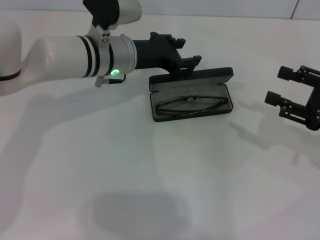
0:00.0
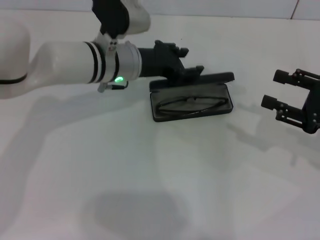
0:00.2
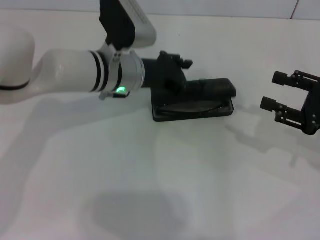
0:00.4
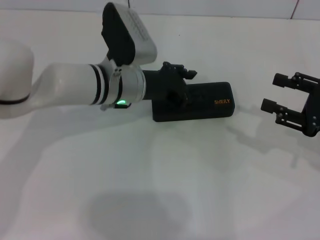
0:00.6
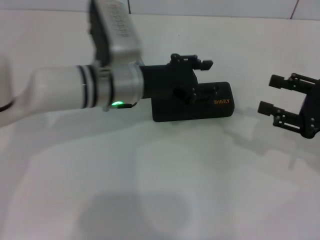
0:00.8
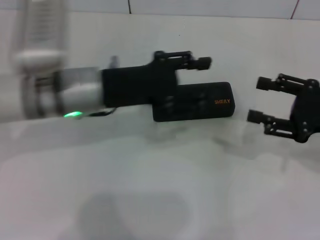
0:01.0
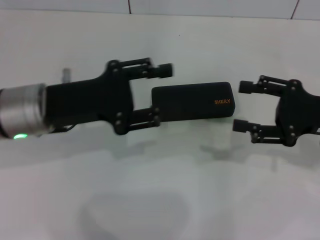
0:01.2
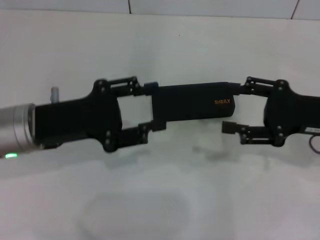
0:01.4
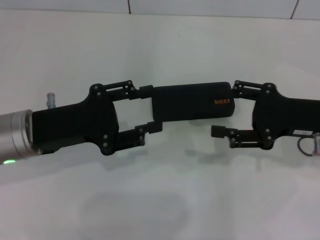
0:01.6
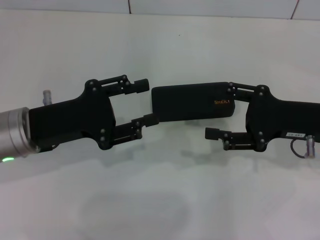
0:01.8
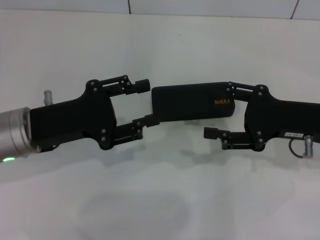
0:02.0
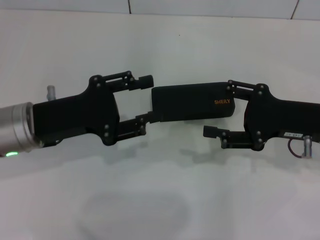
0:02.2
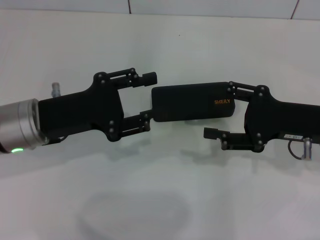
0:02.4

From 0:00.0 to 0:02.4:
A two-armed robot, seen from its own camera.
From 0:00.0 to 0:01.2: The left gripper goes approximately 15 cm backward and to the left.
From 0:01.2 to 0:02.4: The grippers make only small movements.

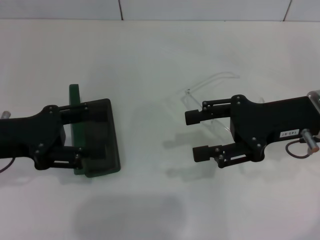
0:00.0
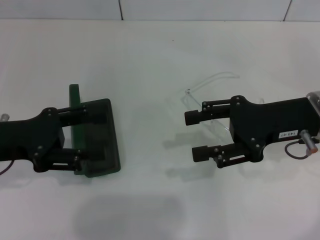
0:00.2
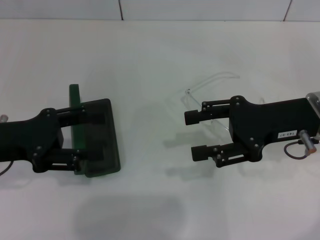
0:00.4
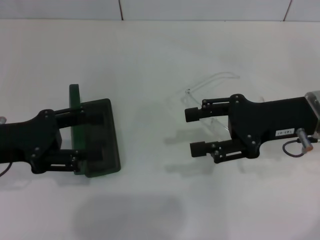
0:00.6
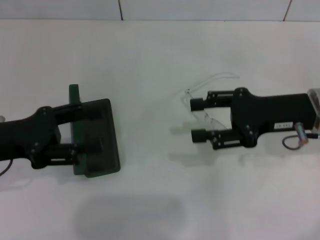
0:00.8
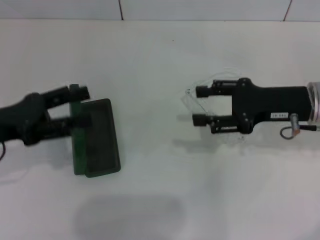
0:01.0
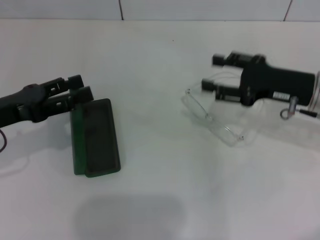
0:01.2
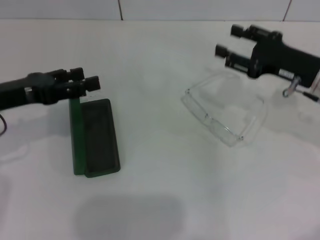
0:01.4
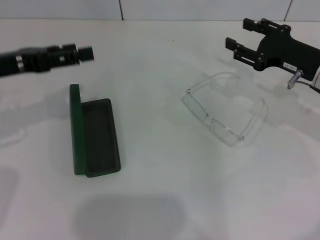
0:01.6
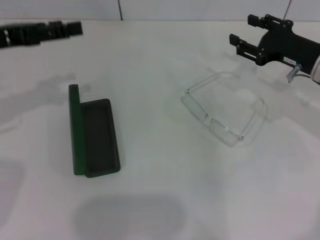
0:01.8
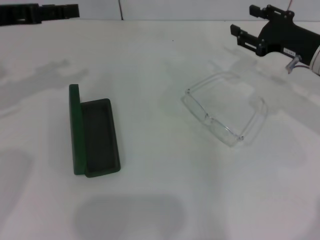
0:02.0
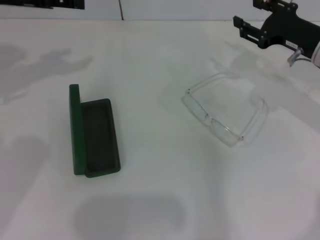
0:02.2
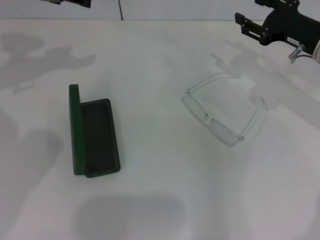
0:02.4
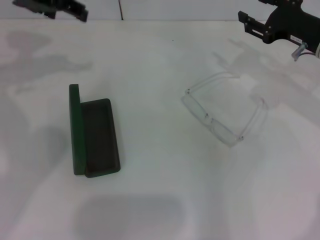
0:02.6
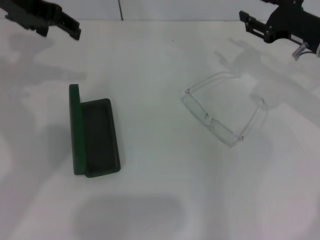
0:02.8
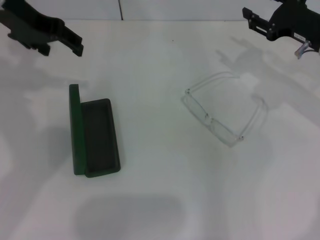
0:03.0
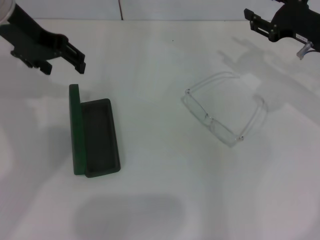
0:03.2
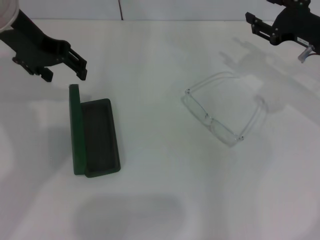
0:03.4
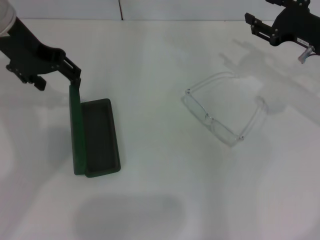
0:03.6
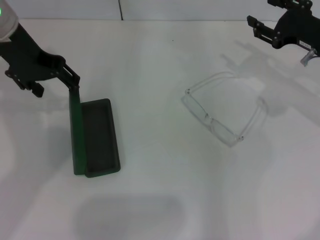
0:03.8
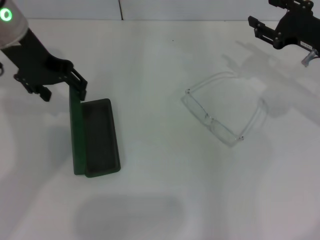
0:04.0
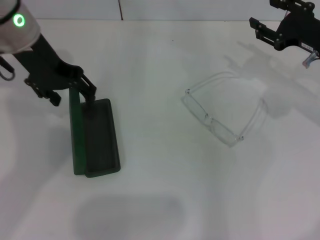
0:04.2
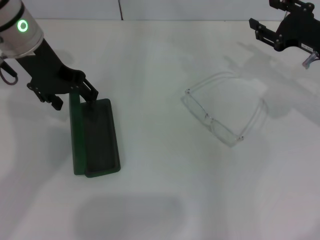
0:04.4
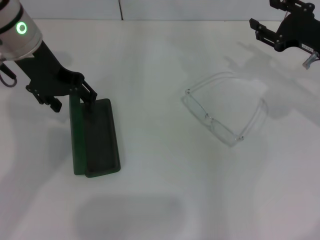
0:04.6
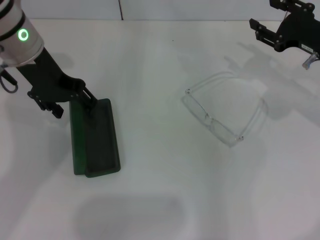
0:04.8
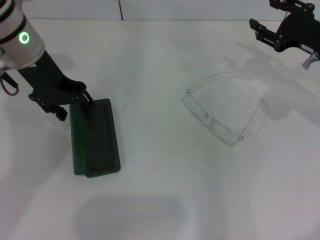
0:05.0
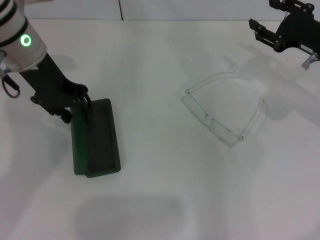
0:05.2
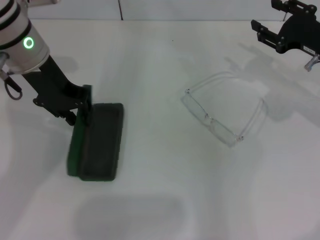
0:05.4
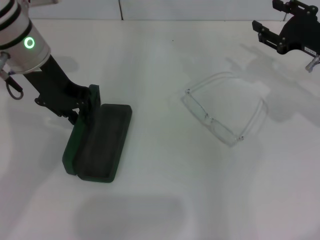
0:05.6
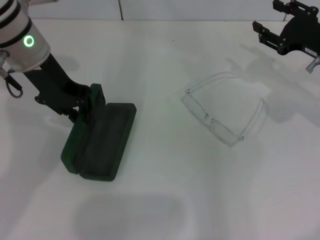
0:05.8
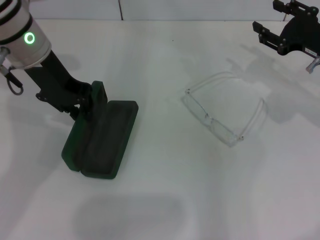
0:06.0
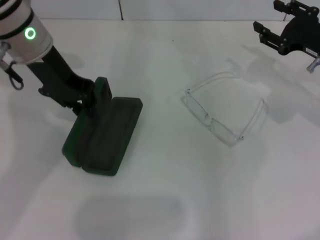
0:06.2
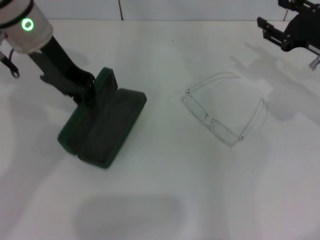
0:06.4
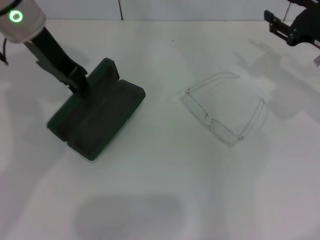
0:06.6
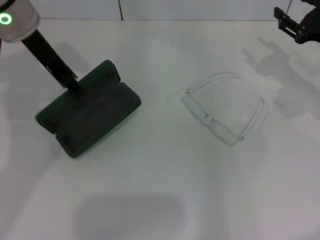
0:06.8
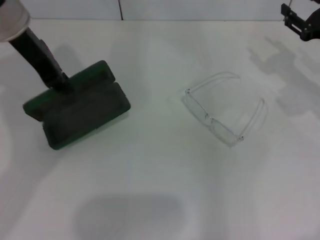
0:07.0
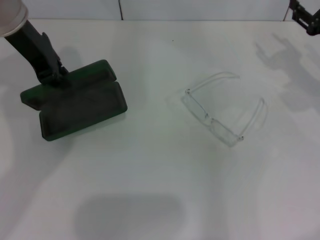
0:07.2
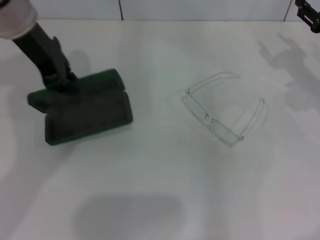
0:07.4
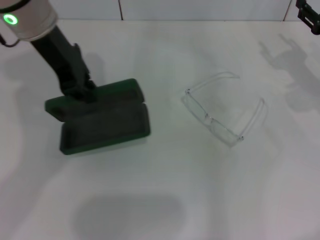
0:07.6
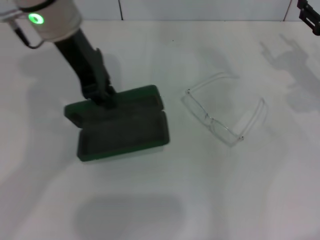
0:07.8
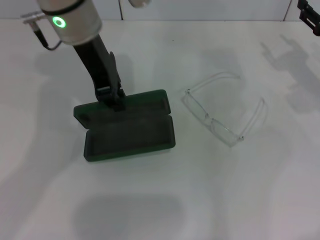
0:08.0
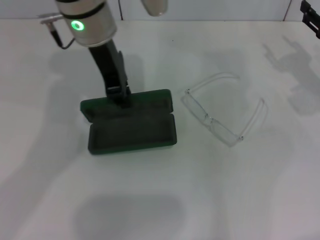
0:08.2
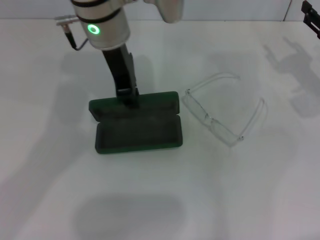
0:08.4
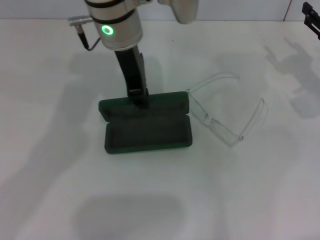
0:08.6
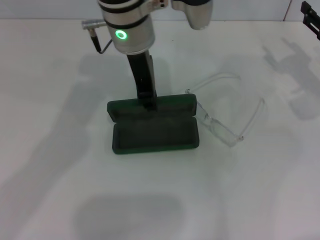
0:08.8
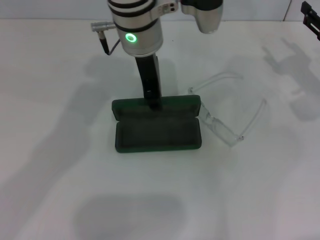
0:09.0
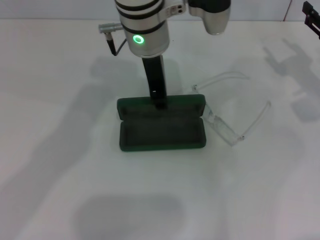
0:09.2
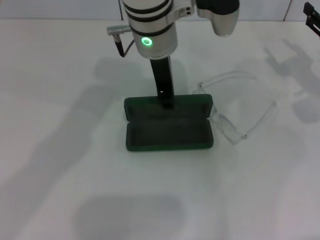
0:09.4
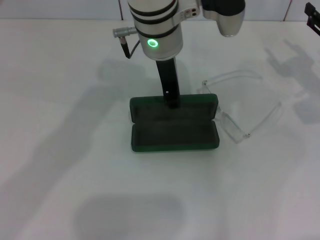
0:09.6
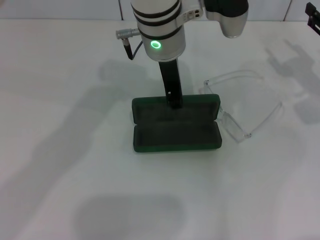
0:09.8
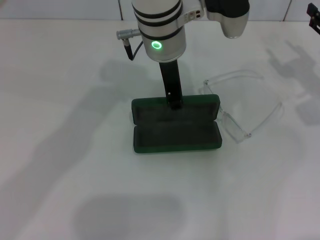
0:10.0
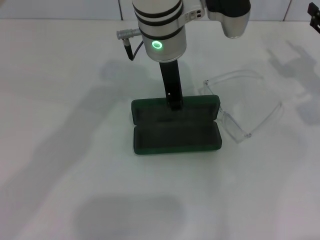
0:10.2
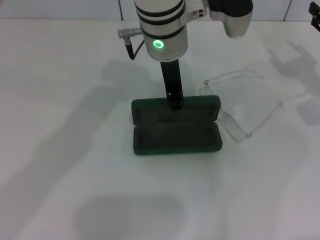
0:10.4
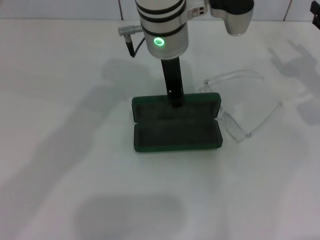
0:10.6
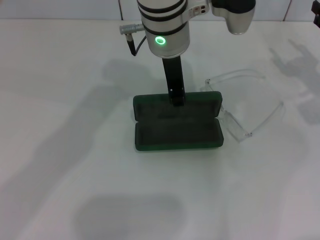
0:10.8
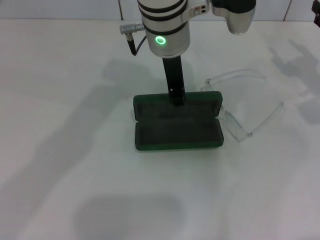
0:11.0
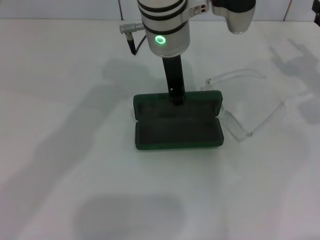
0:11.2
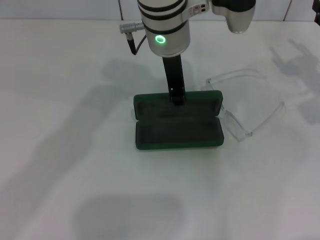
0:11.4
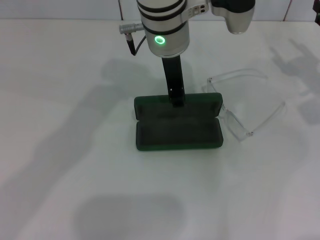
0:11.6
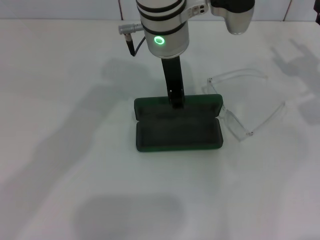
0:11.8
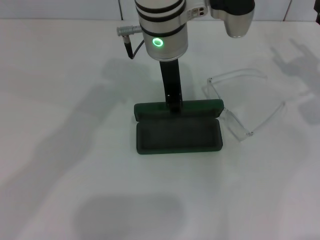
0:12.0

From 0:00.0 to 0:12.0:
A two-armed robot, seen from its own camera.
Step, from 0:00.0 to 0:05.6: Grab the glasses case with your left hand.
From 0:00.0 to 0:01.6: The right gripper heads forward, covering roughly 5 cm; the left gripper ends up approximately 5 cm from where it was.
From 0:01.6 to 0:03.0: The left gripper goes approximately 15 cm upward, forward and to the right.
From 0:03.0 to 0:04.4: The left gripper moves some 5 cm.
From 0:04.4 to 0:06.0: The left gripper closes.
From 0:07.6 to 0:09.0: The left gripper shifts roughly 15 cm to the right.
From 0:09.0 to 0:10.4: The grippers stay close to where they were, moving slightly.
From 0:10.4 to 0:12.0: The two grippers keep their place.

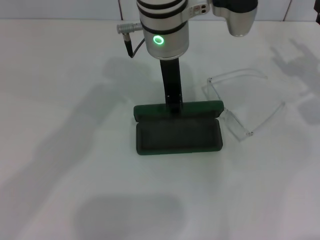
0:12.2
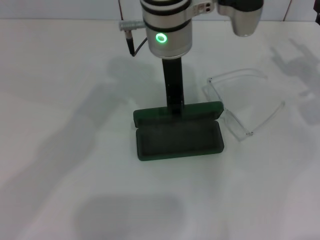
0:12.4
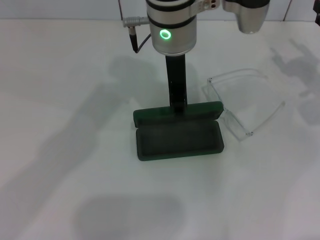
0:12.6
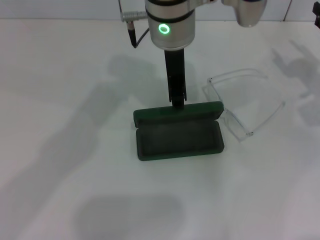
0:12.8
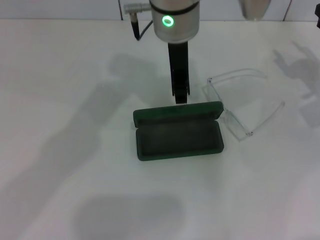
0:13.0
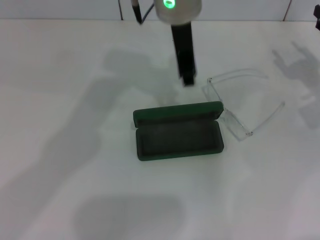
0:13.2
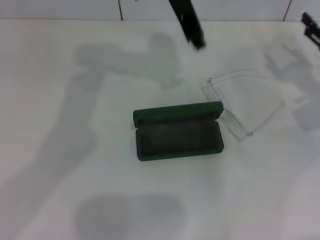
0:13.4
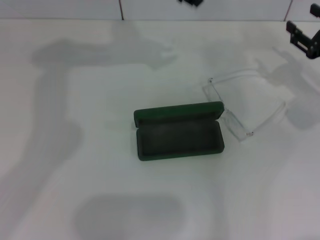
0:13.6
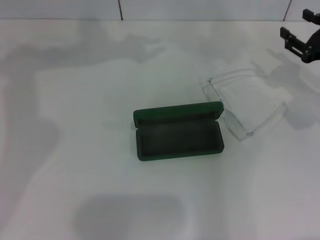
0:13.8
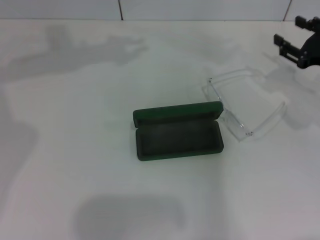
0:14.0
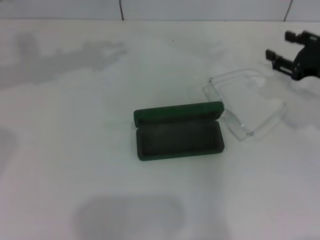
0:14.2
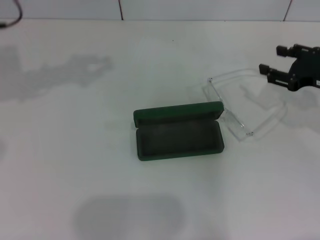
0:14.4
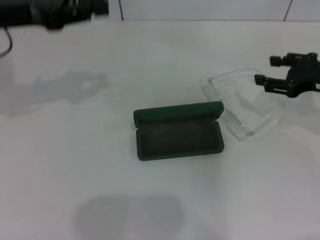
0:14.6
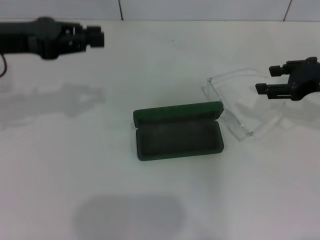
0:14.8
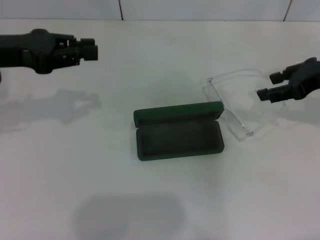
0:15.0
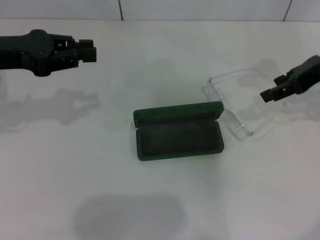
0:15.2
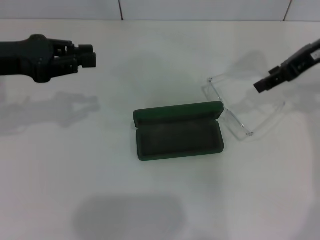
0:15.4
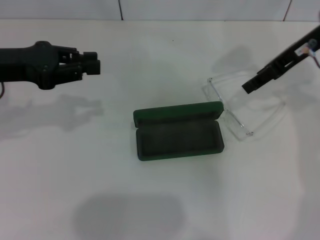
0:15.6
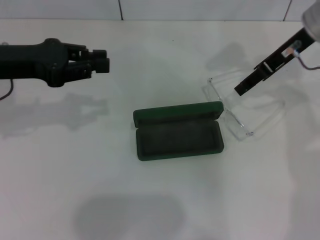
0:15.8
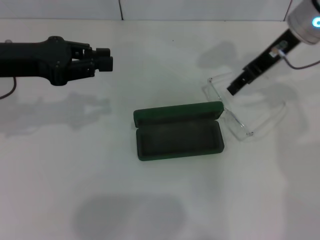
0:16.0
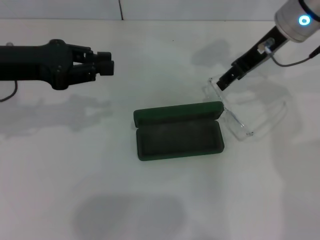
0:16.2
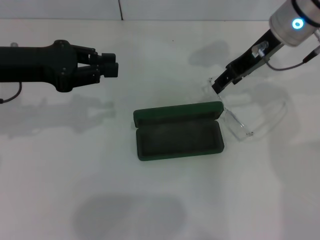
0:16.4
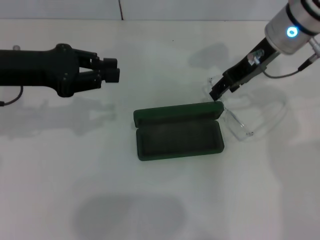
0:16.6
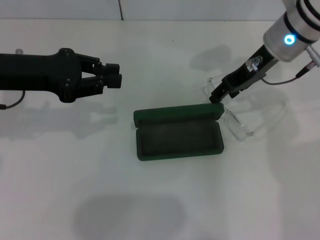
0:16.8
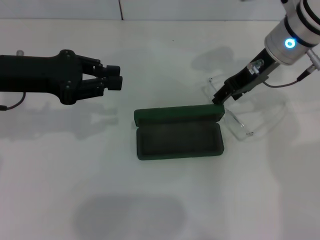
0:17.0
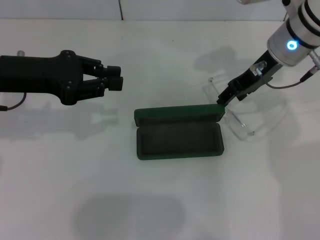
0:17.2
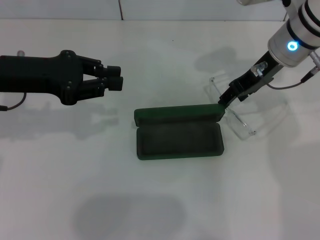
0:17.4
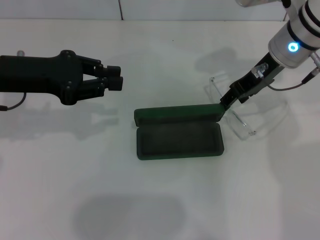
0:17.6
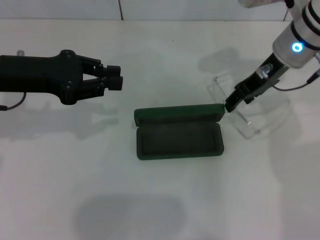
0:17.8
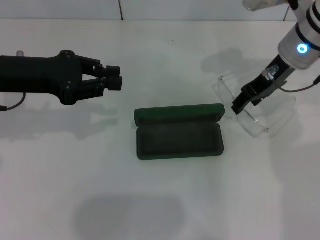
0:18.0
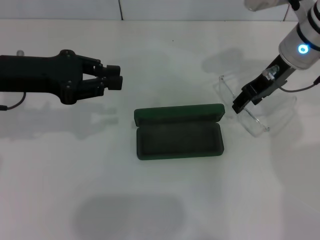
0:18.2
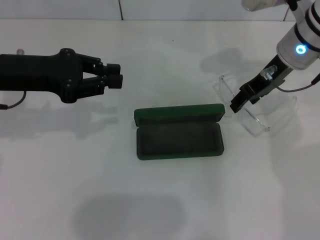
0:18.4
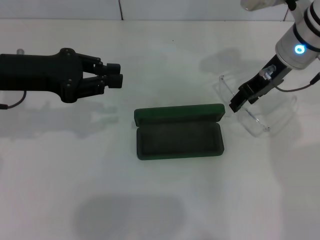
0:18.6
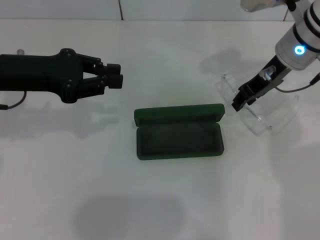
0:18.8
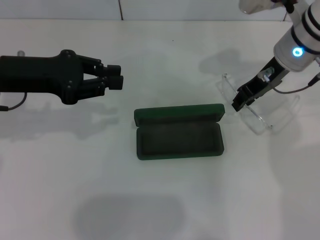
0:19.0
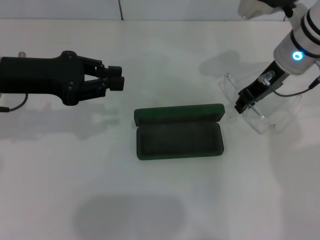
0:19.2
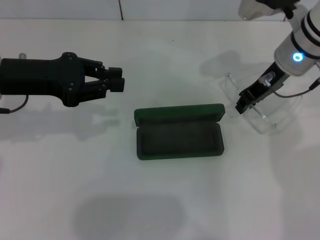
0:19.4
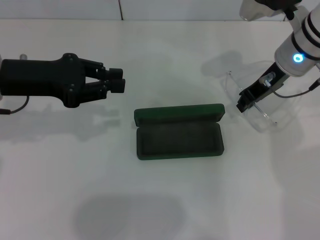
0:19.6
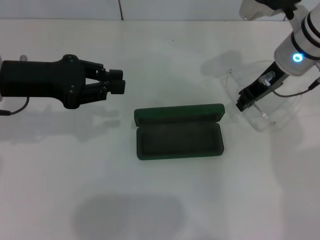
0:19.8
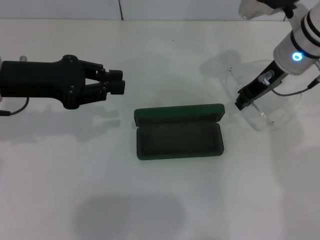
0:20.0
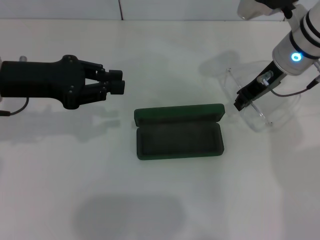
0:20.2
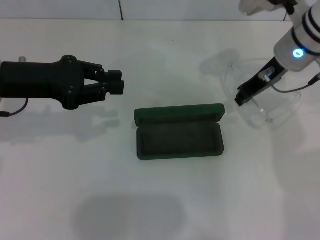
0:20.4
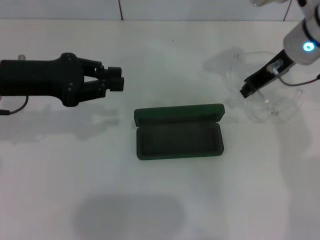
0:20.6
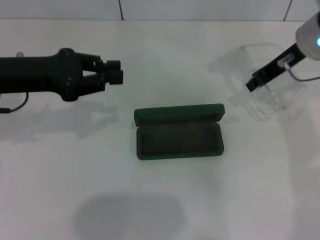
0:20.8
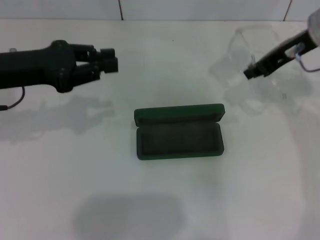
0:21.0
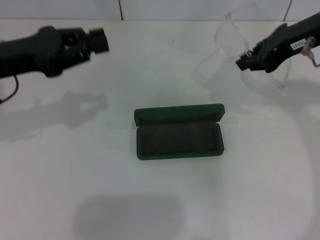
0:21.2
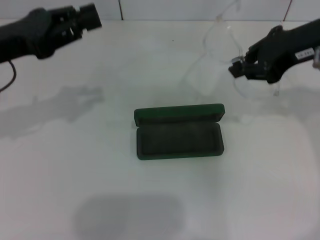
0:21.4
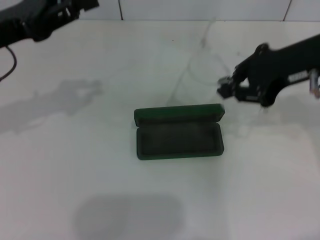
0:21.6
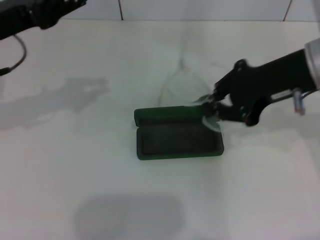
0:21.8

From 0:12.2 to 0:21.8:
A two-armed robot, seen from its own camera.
Step, from 0:12.4 to 0:20.0: Grab the eyeglass frame with your right hand.
From 0:12.2 to 0:13.8: The left gripper is displaced to the left and forward by approximately 15 cm.
From 0:13.8 to 0:15.4: The left gripper goes about 20 cm to the left, backward and downward, while the right gripper moves upward and to the left, some 15 cm.
From 0:15.4 to 0:17.0: The right gripper shifts some 10 cm to the left.
From 0:17.0 to 0:18.6: The grippers make only small movements.
From 0:18.6 to 0:20.2: The right gripper closes its fingers.
From 0:20.2 to 0:21.8: The right gripper travels backward and upward by about 10 cm.
